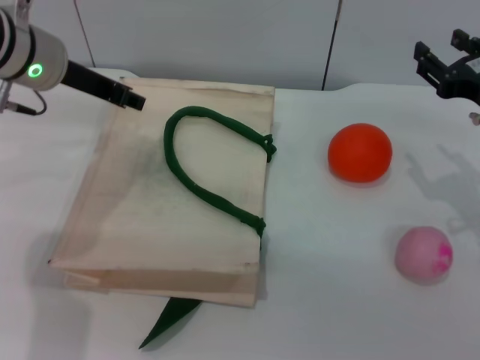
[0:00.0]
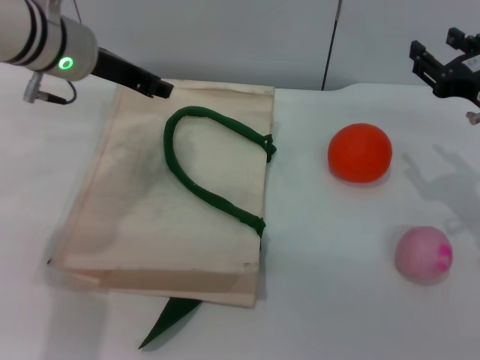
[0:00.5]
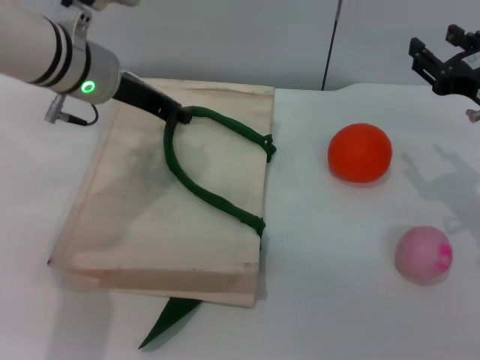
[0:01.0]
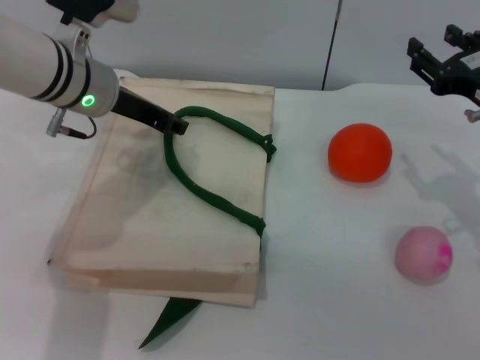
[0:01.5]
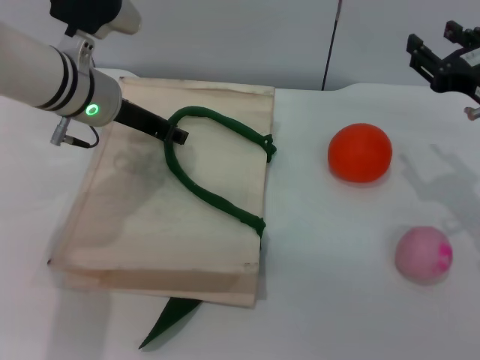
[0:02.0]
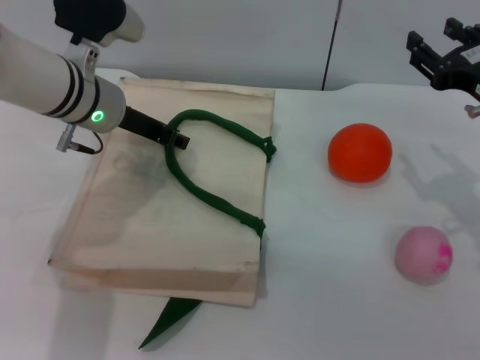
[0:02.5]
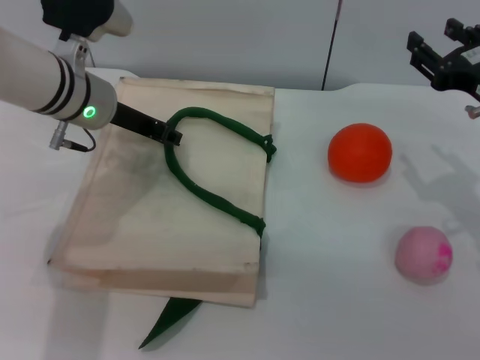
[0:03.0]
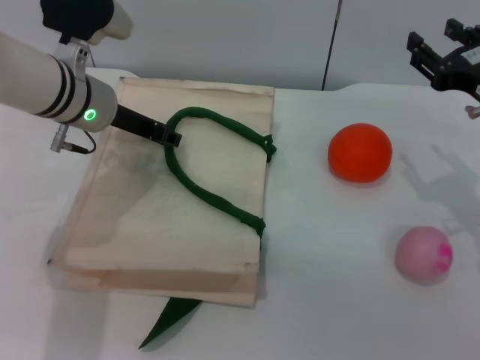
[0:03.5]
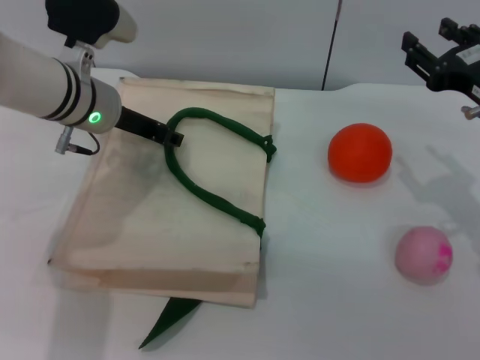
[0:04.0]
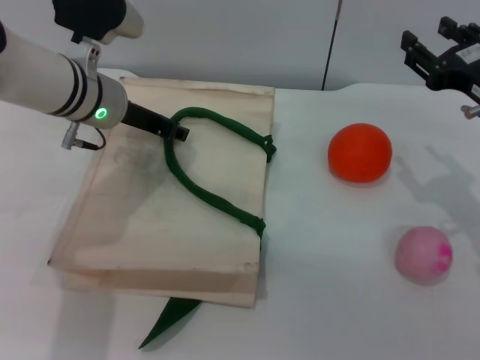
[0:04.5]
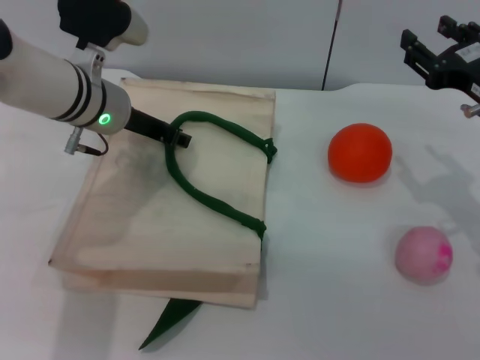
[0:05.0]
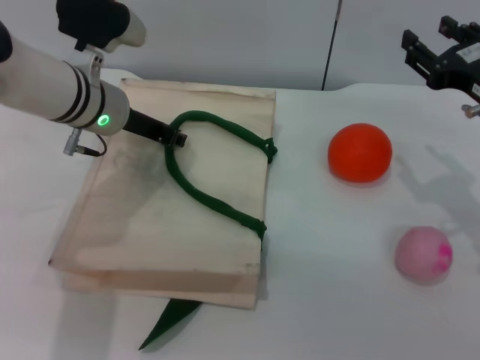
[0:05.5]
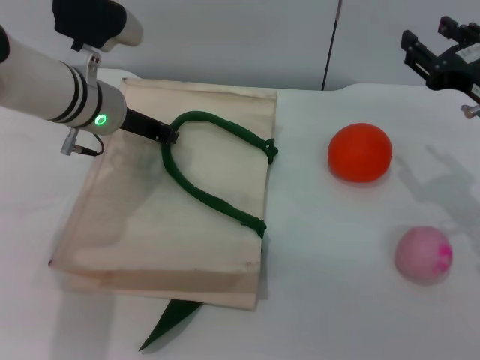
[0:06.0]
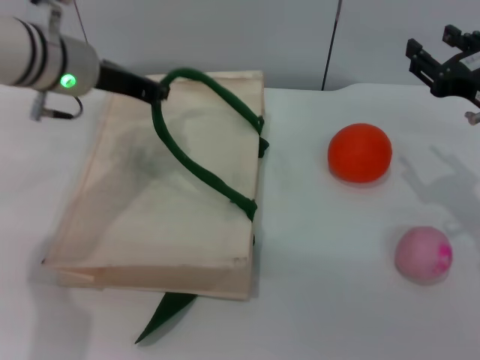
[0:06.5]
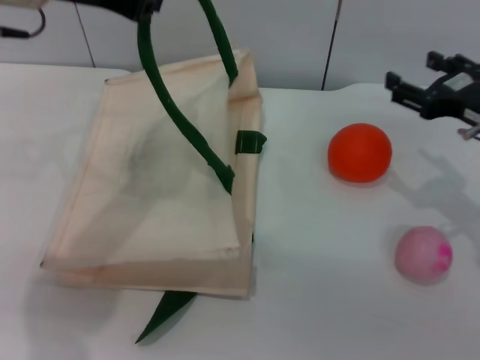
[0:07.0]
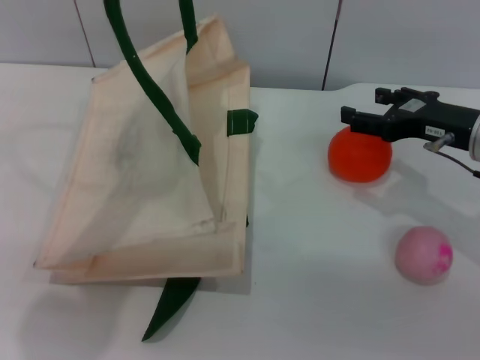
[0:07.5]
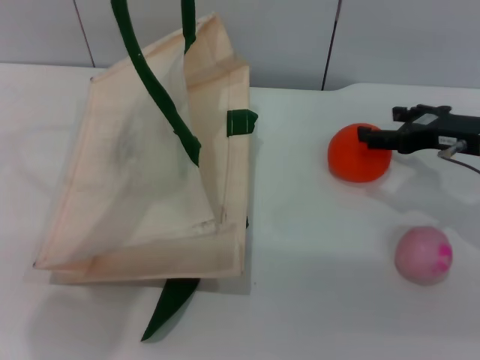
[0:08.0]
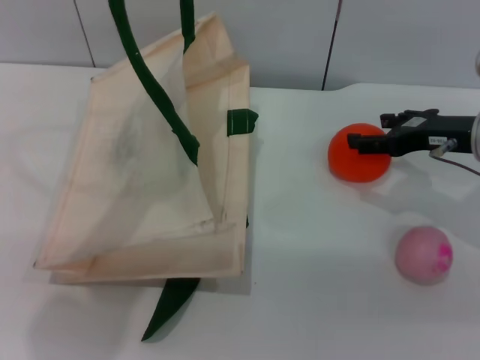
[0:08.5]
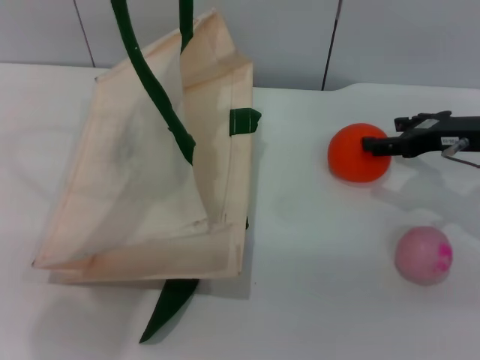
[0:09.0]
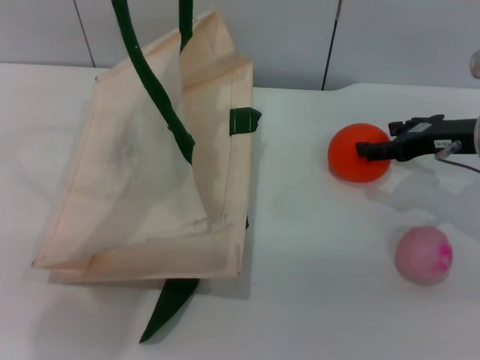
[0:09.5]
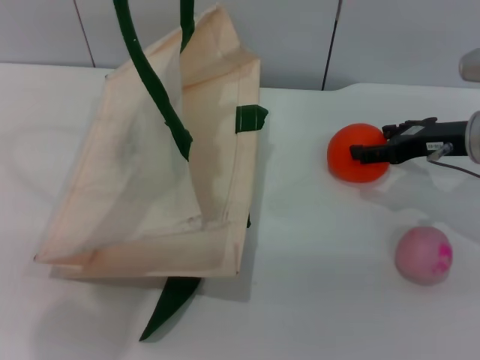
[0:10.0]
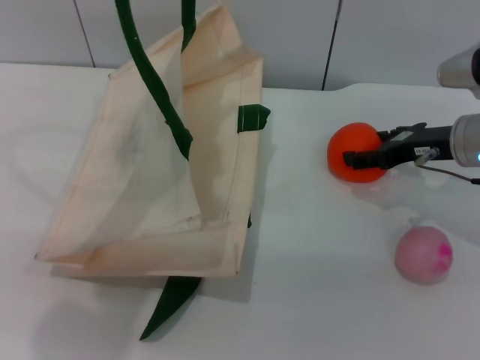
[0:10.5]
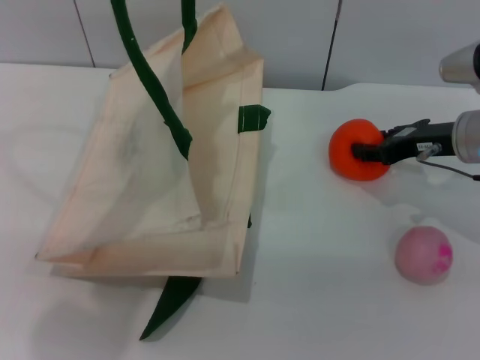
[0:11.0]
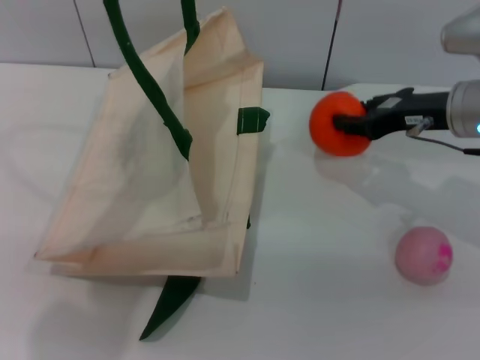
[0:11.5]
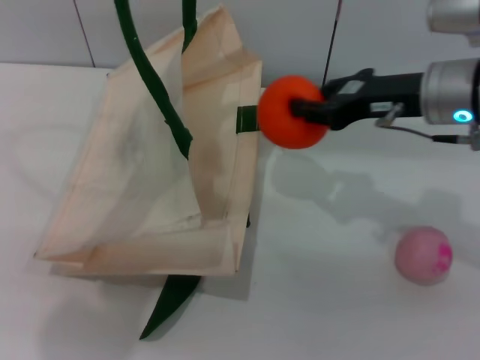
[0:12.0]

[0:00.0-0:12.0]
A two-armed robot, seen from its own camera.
Task of the whole recording: pick up the orange and peach from the table and place it in the white handbag.
Step, 0:00.0 to 0:06.0: Lift the woven bag with the left gripper to open it.
Step, 0:06.5 to 0:11.5: Pick up the orange with the right gripper.
0:00.0 to 0:02.0: The left gripper travels downward by some 5 cm.
0:02.0 to 0:04.0: The grippers stay close to where they were, moving slightly.
0:04.0 to 0:06.0: Neither gripper changes place.
0:06.0 to 0:08.0: The right gripper ends up approximately 5 cm from where it was. Meanwhile the left gripper travels upward by approximately 20 cm.
0:08.0 to 0:10.0: The grippers move only a little.
0:10.0 to 0:12.0: The right gripper travels to the left and upward by about 10 cm, and closes its fingers.

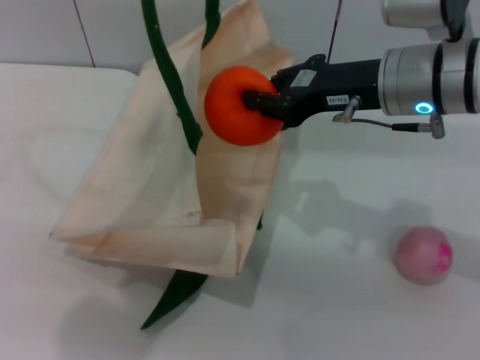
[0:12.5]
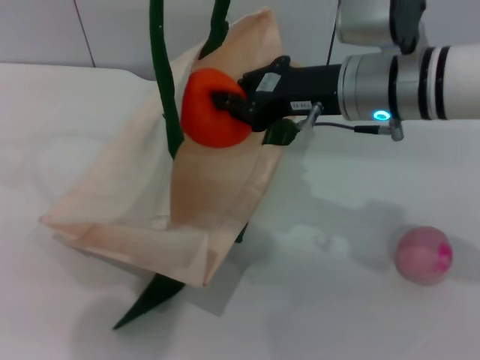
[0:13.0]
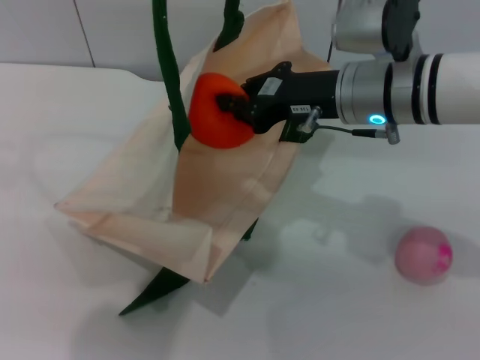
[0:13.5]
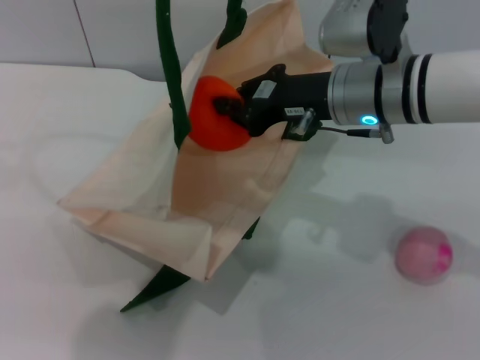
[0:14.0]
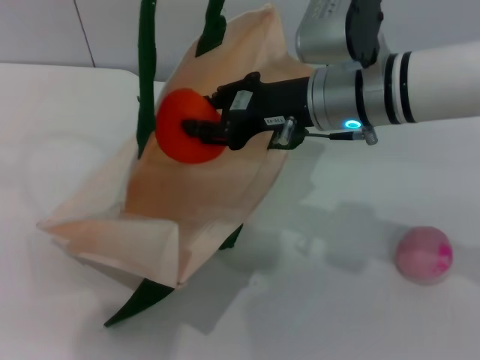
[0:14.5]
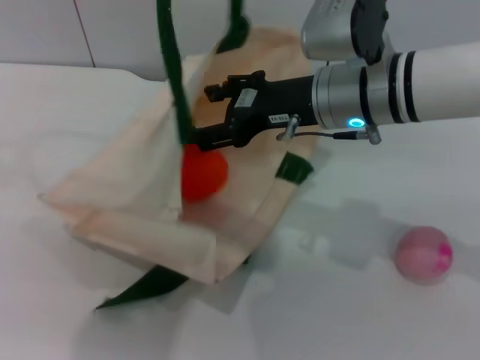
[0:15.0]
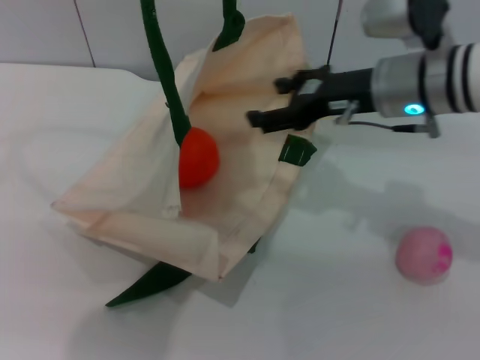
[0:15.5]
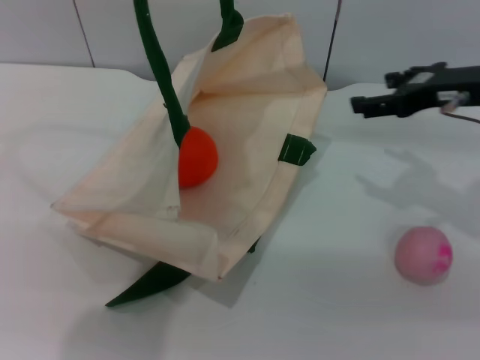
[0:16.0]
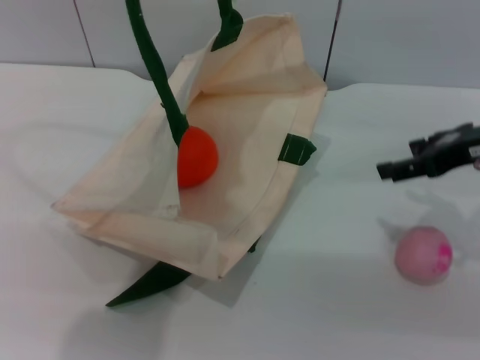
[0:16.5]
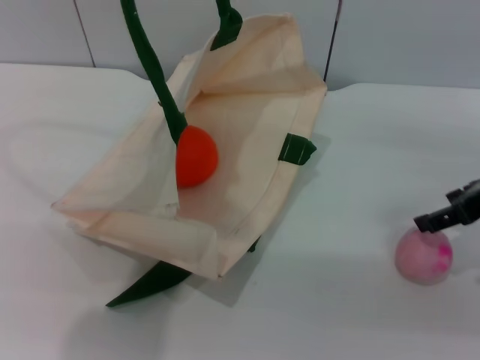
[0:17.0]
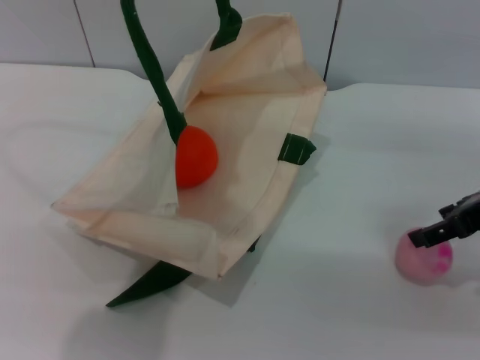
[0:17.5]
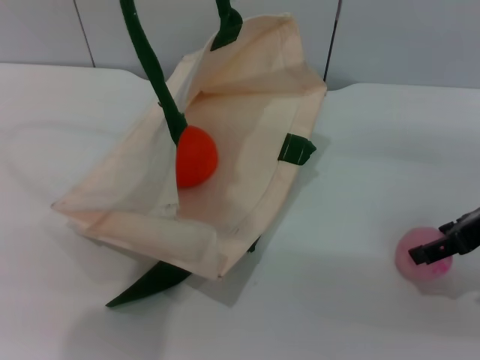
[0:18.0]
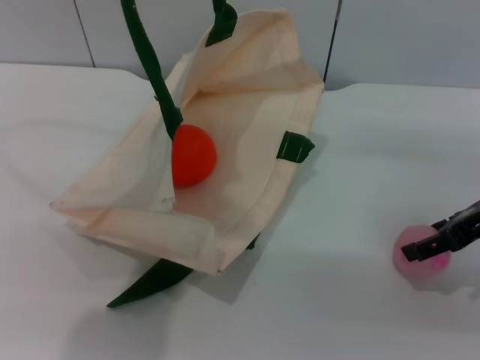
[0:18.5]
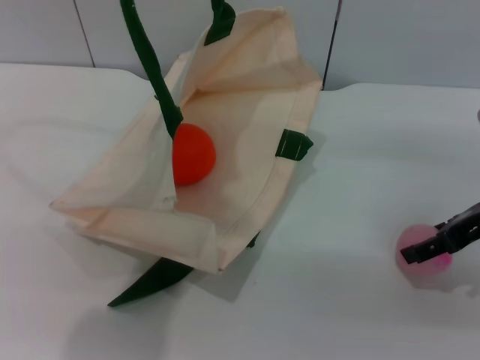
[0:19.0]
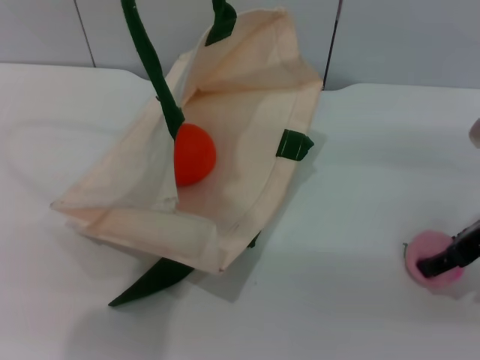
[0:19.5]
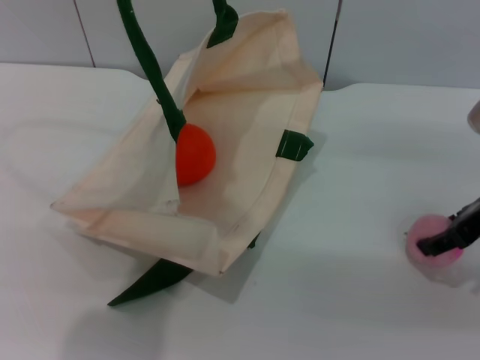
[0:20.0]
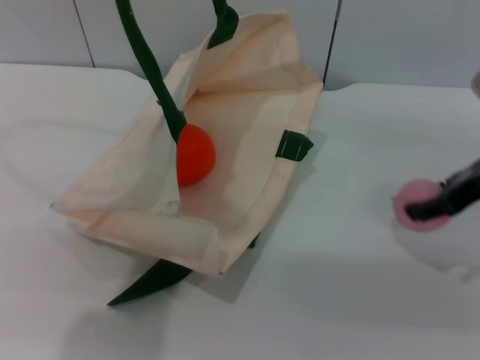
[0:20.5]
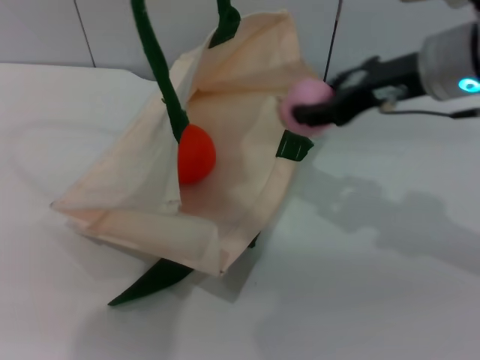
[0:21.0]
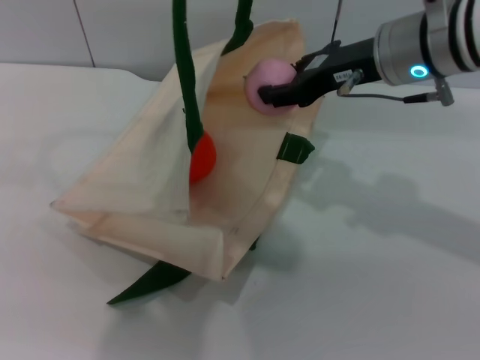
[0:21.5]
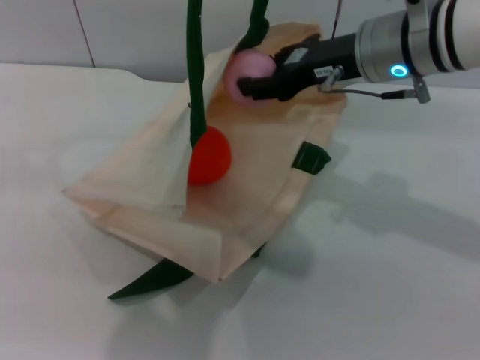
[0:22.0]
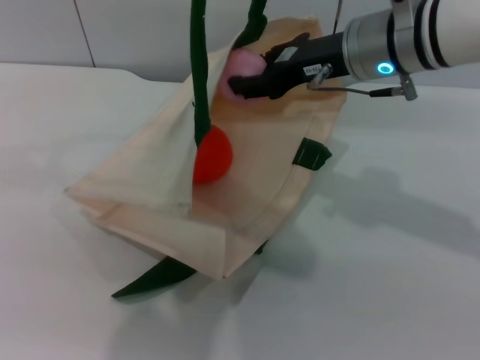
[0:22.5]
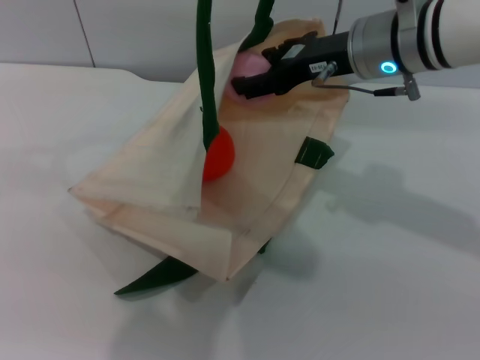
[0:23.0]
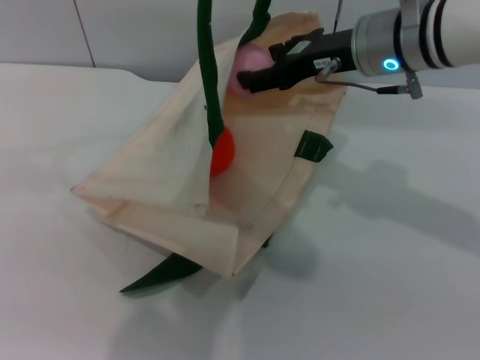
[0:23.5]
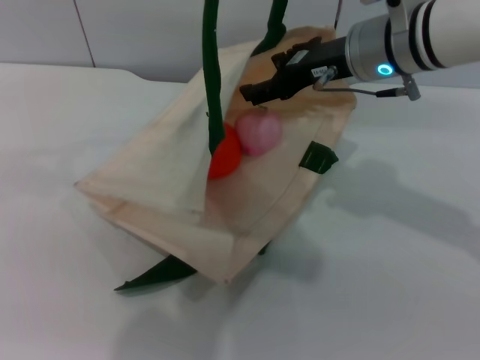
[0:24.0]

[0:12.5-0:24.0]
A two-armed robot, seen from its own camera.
Task of the whole recording: pick up the orange and peach from the table and place it in the white handbag.
Step, 0:12.5 to 0:15.5: Place the orange into the woven bag with the right gripper.
Step, 0:16.0 to 0:20.5: Pick up the peach with the right gripper.
0:12.5 to 0:14.5: The right gripper shifts approximately 5 cm to the left.
0:14.5 to 0:16.5: The right gripper shifts some 15 cm to the right, and opens up.
0:16.5 to 0:18.5: The grippers stay close to where they were, moving slightly.
0:18.5 to 0:20.0: There are only small adjustments of the grippers.
0:20.0 to 0:22.0: The right gripper moves to the left and forward, roughly 15 cm, while the left gripper shifts about 5 cm to the right.
0:22.0 to 0:24.0: The right gripper opens.

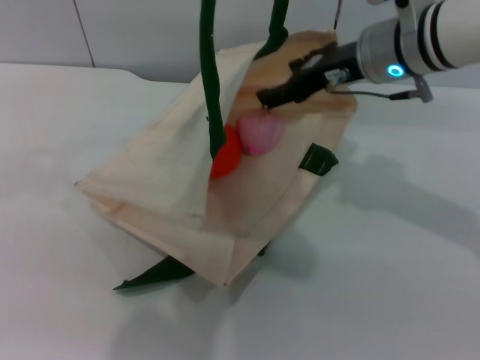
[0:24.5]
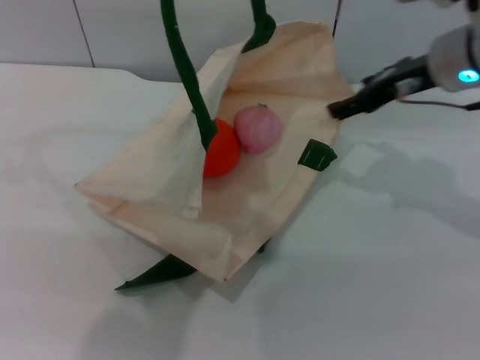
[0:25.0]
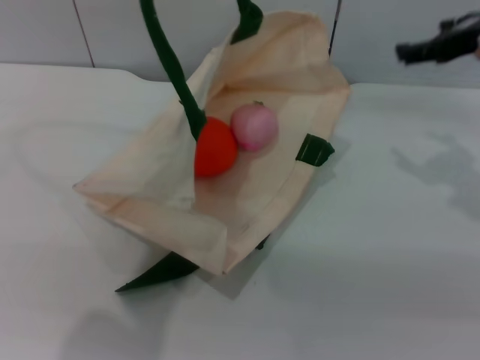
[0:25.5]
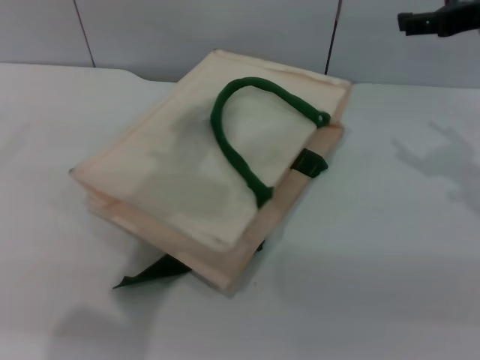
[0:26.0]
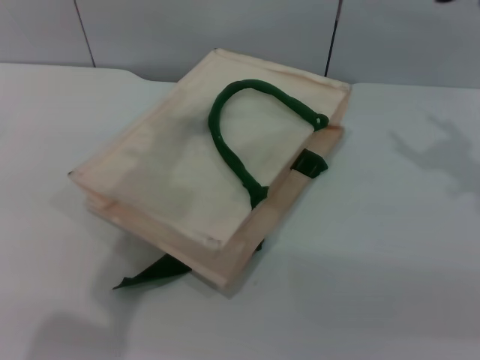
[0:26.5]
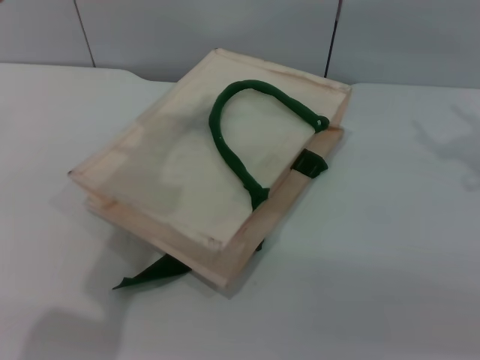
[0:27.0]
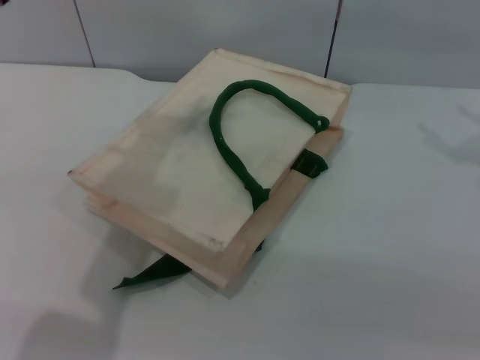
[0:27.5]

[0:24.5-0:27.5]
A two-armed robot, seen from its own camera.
Task of the whole recording: pick up the orange and peach from the table and place it in the white handbag.
Step, 0:25.5 to 0:26.0: Lower the woven bag with the left gripper to close it.
0:24.5 to 0:26.0: The left gripper goes roughly 5 cm to the left, while the right gripper goes approximately 15 cm to the right and upward.
0:26.0 to 0:27.5: The left gripper heads downward, covering roughly 5 cm, and opens its fingers.
